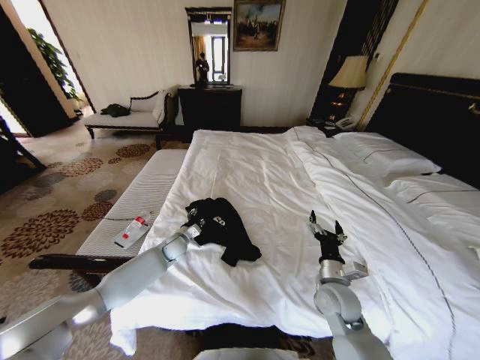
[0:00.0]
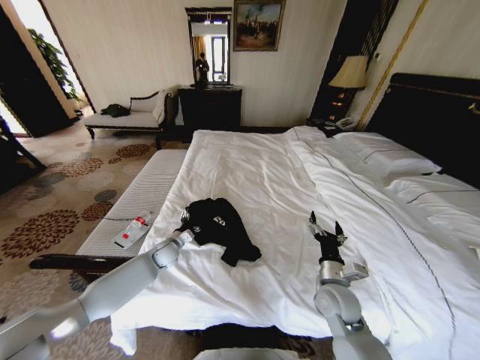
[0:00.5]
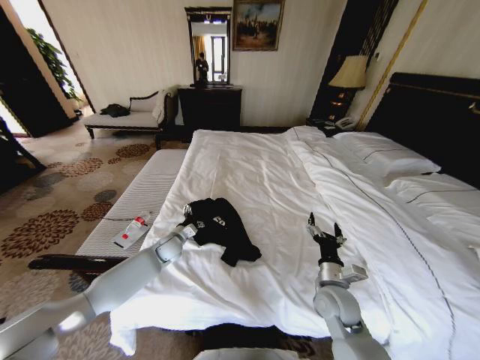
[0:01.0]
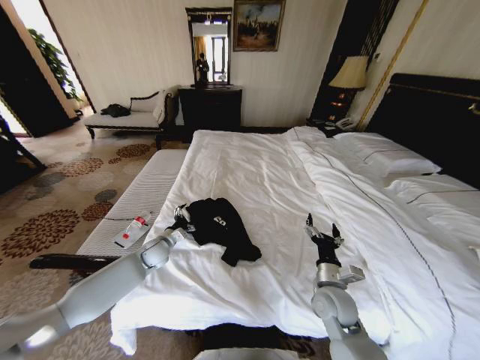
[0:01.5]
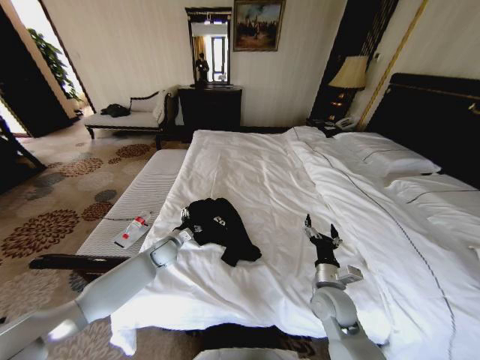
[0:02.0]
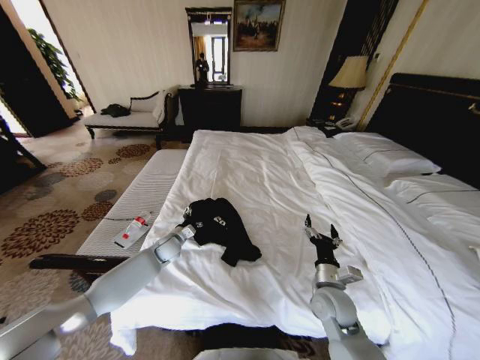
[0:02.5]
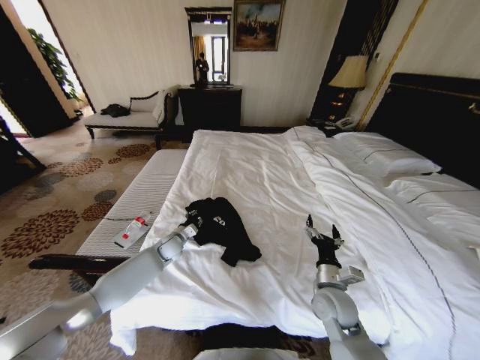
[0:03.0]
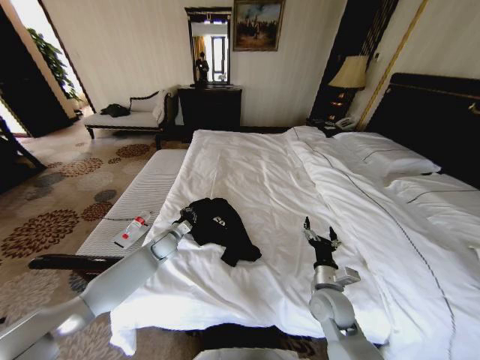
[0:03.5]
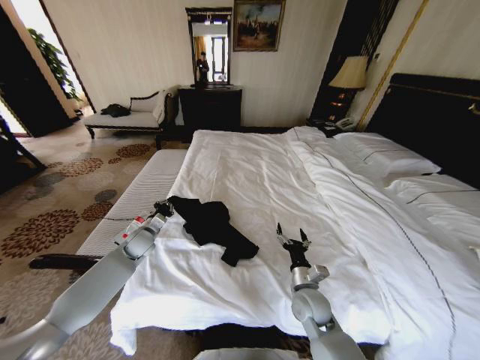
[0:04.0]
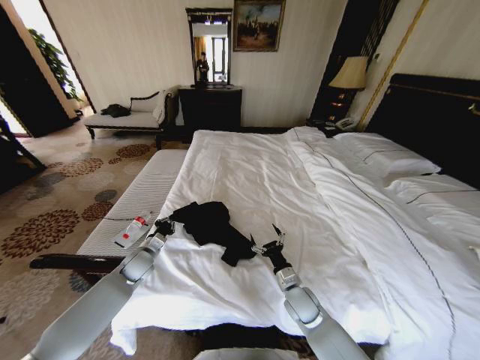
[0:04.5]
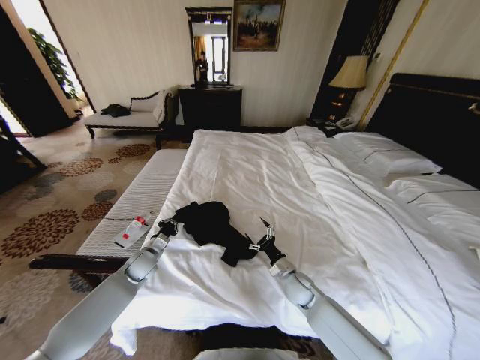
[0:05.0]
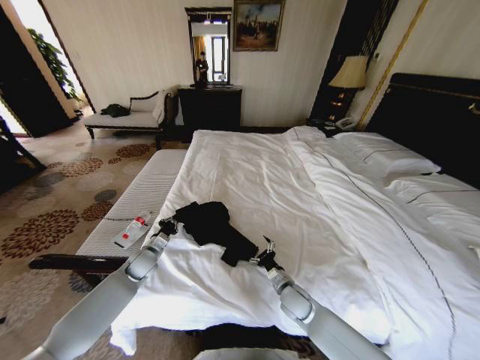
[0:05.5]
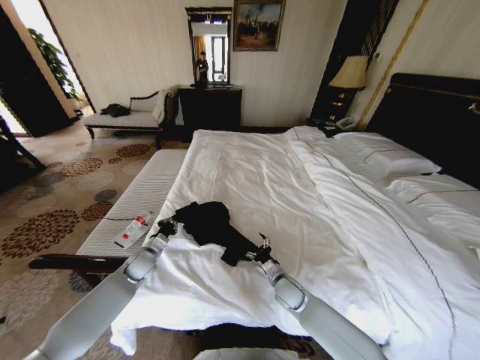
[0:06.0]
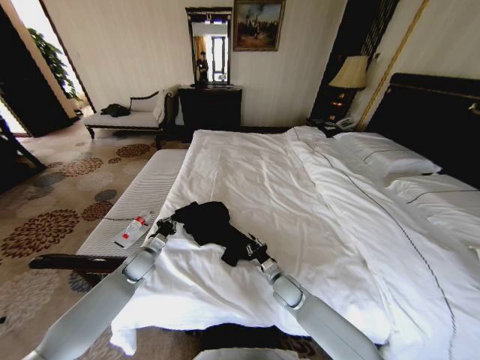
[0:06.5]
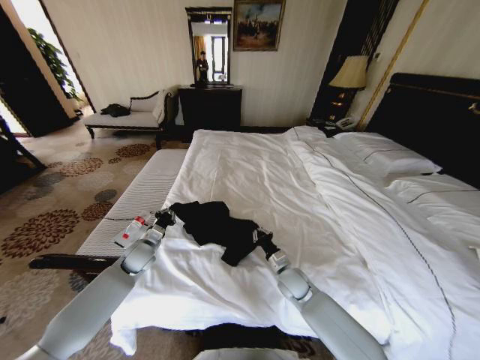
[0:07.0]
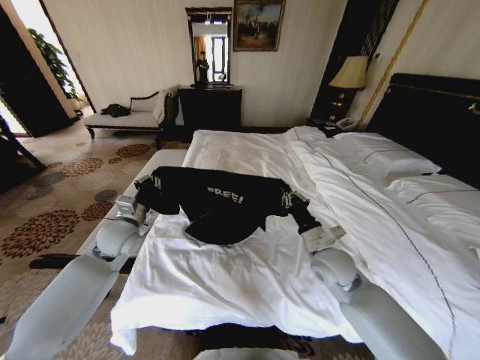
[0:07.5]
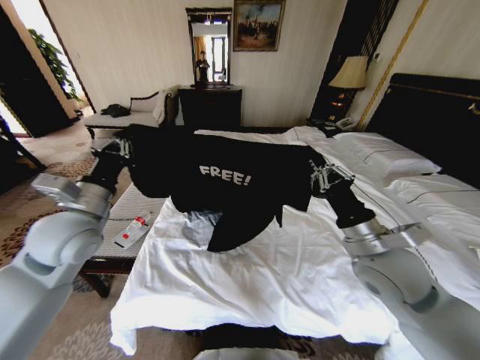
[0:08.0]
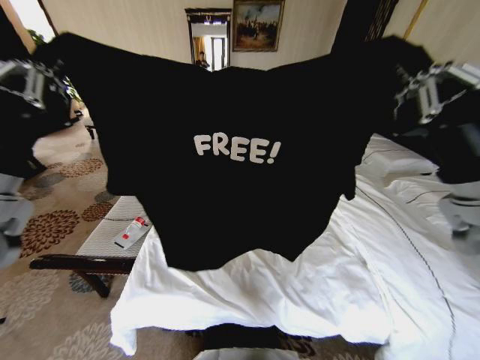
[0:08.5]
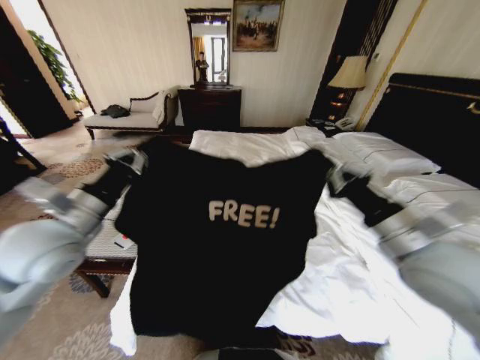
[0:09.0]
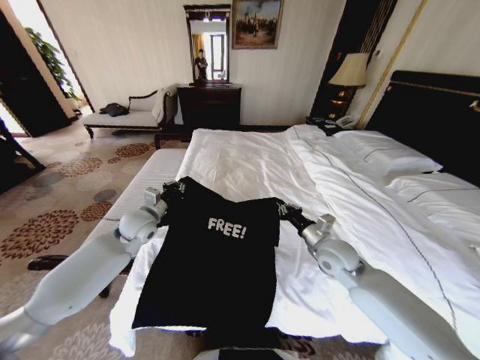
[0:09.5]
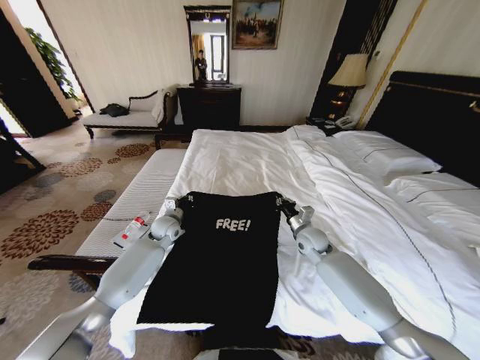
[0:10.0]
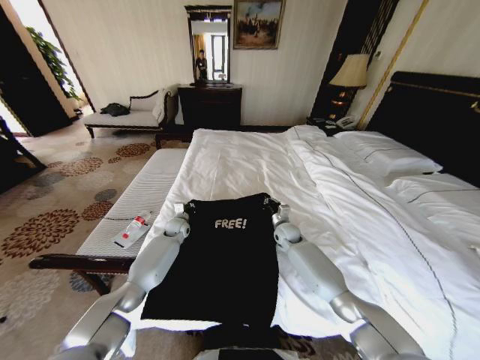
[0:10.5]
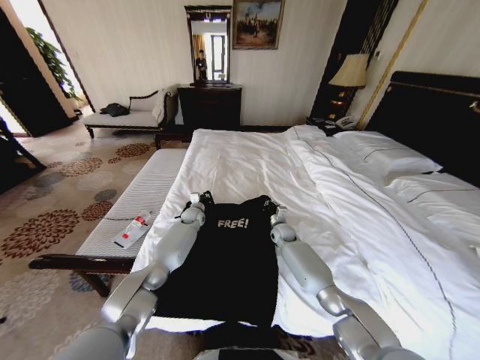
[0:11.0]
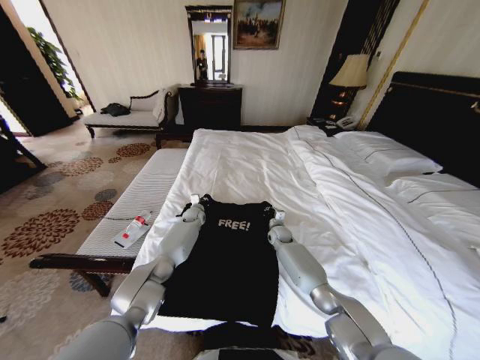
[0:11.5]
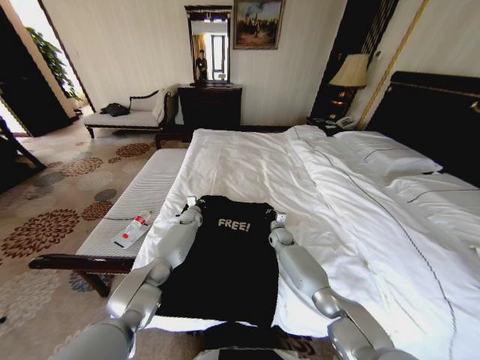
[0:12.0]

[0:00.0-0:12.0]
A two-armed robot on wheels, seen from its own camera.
Task of the whole recording: Fold the clothes on the bed.
0:00.0 to 0:02.0: The left gripper opens its fingers.
0:02.0 to 0:04.0: The left gripper shifts some 10 cm to the left and upward, and closes its fingers. Meanwhile the right gripper ends up roughly 5 cm from where it was.
0:04.0 to 0:06.0: The right gripper heads downward and forward, covering some 10 cm. The left gripper is displaced backward by roughly 5 cm.
0:06.0 to 0:08.0: Both grippers travel together upward, roughly 30 cm. The right gripper closes.
0:08.0 to 0:10.0: The left gripper travels downward and forward by approximately 30 cm; the right gripper heads forward and downward, covering some 25 cm.
0:10.0 to 0:12.0: The left gripper travels forward, downward and to the right by some 15 cm. Meanwhile the right gripper moves downward and forward, some 15 cm.

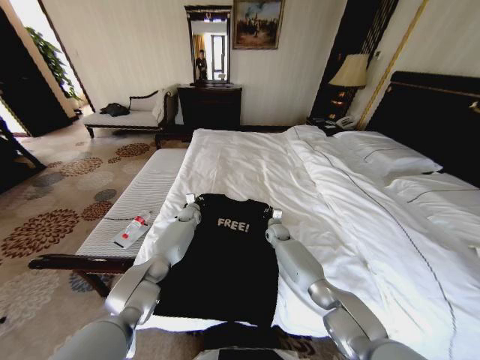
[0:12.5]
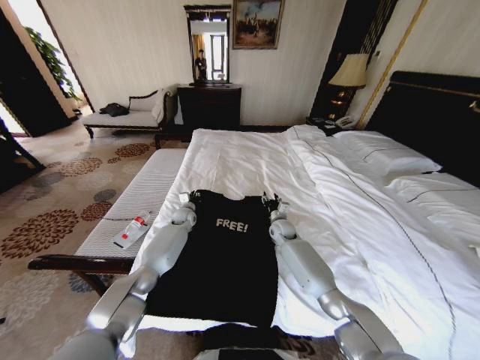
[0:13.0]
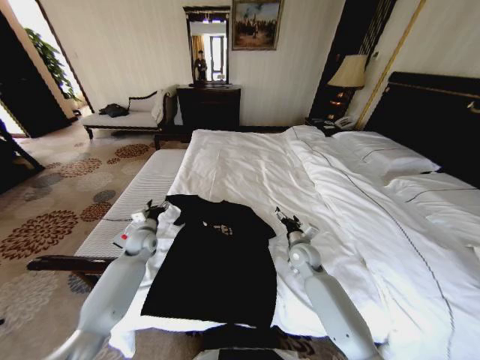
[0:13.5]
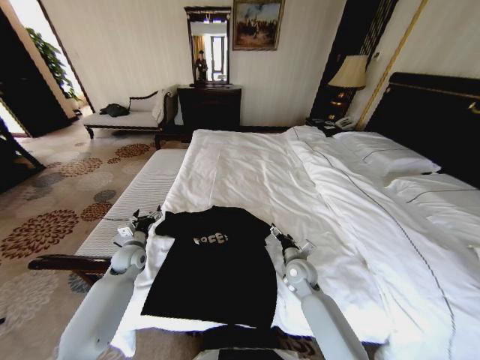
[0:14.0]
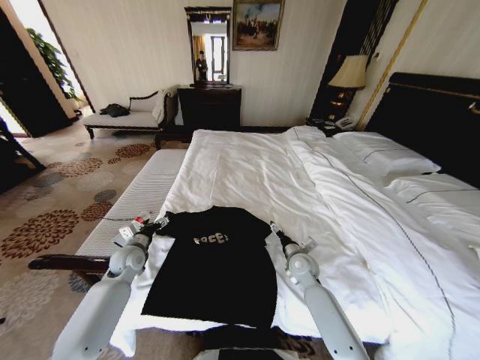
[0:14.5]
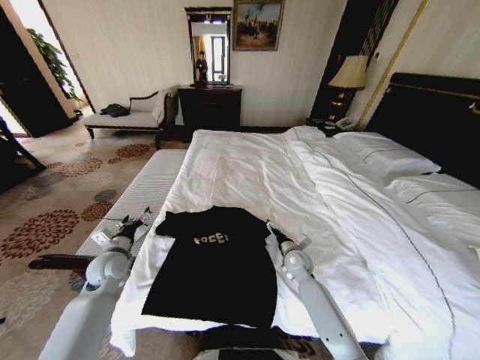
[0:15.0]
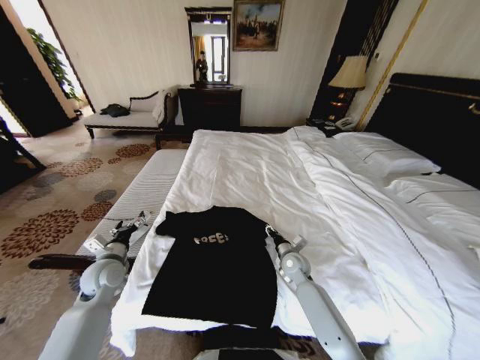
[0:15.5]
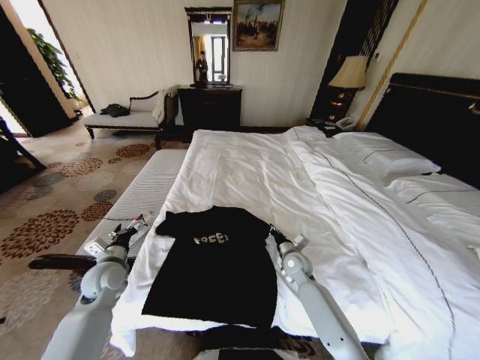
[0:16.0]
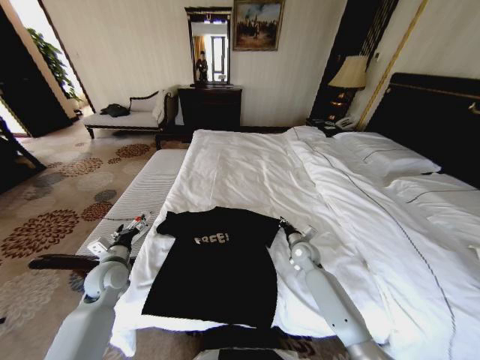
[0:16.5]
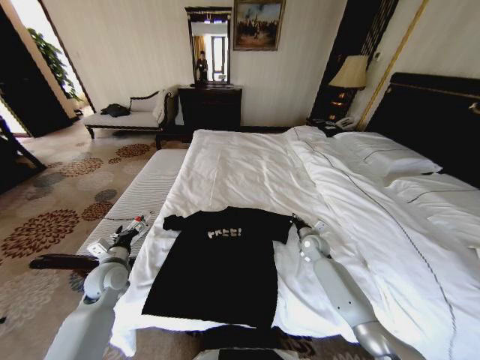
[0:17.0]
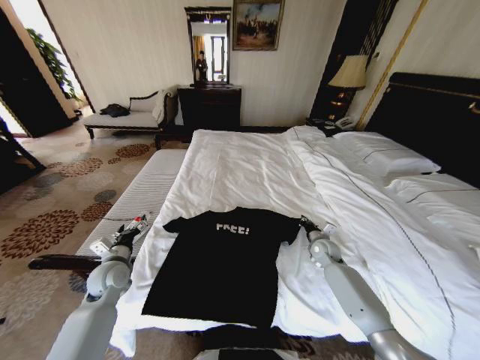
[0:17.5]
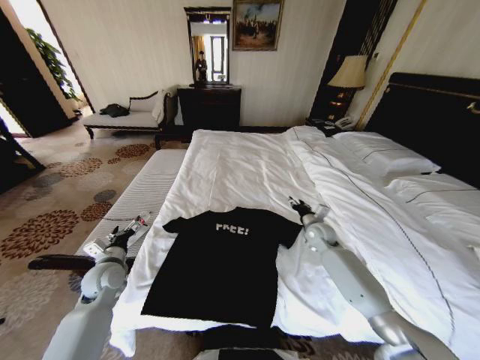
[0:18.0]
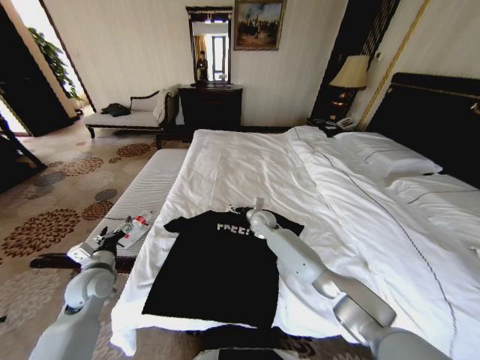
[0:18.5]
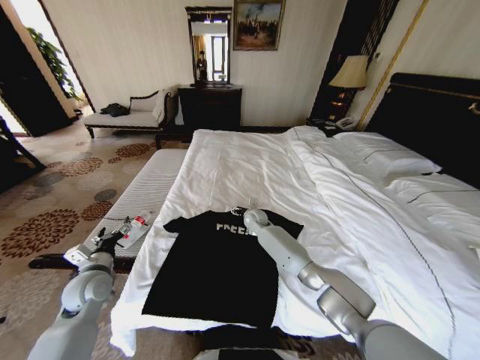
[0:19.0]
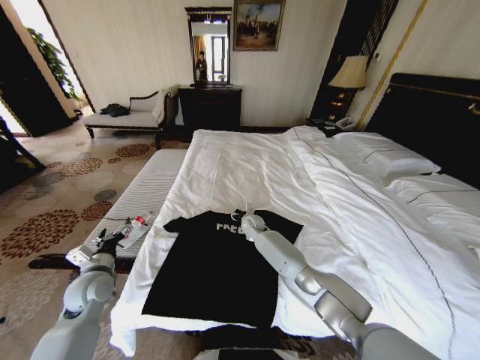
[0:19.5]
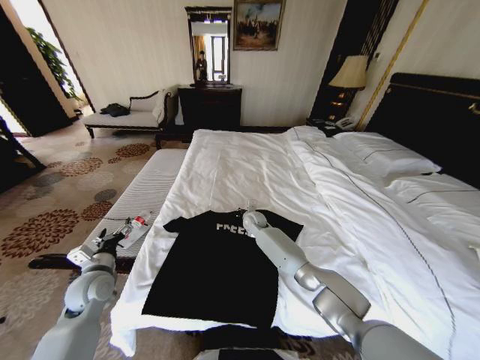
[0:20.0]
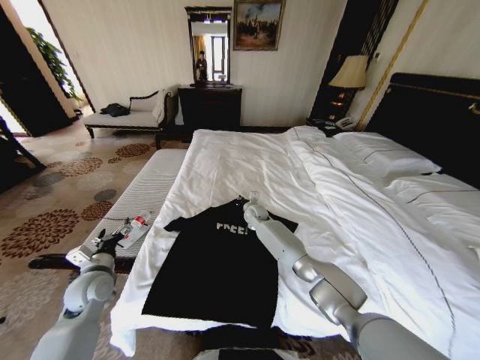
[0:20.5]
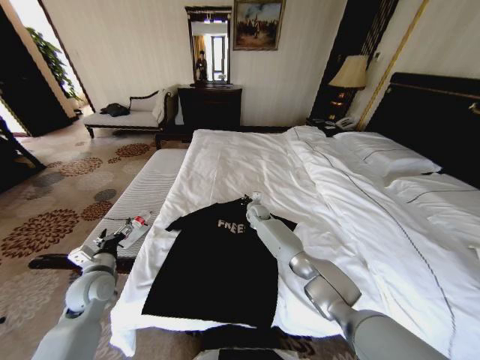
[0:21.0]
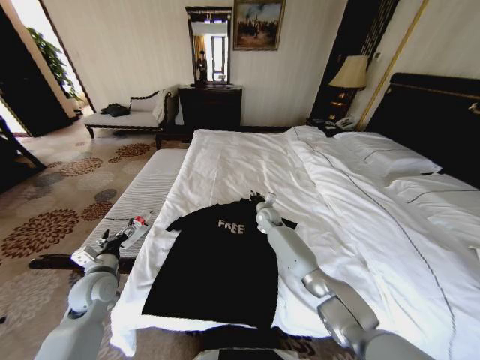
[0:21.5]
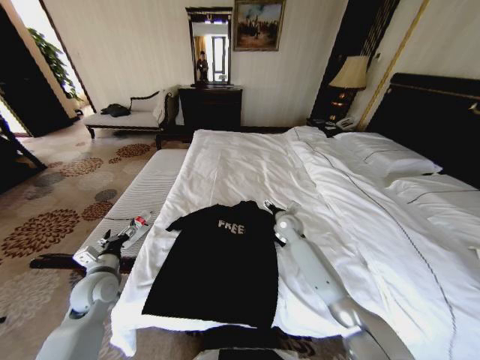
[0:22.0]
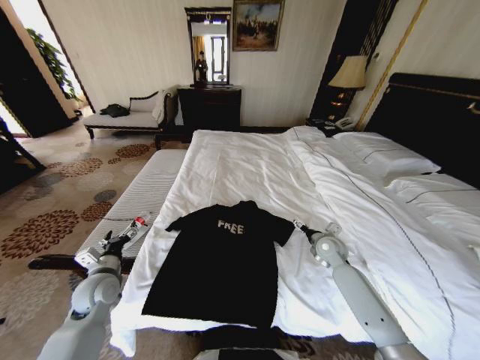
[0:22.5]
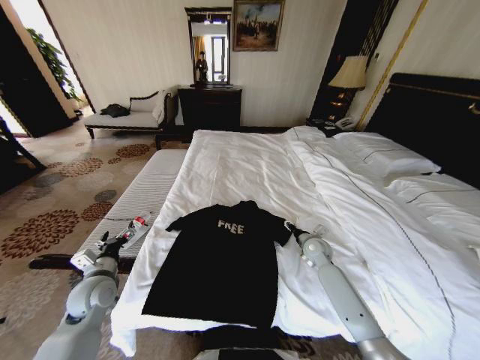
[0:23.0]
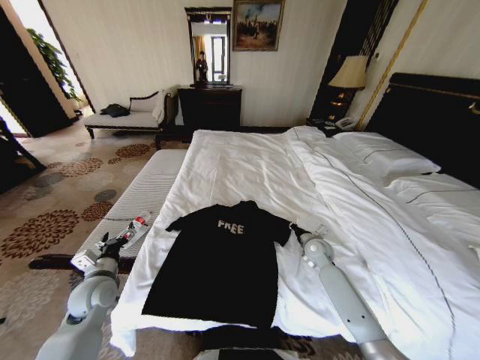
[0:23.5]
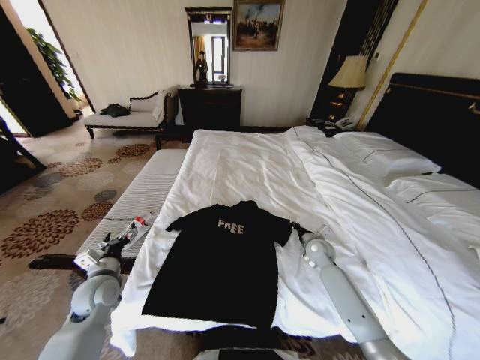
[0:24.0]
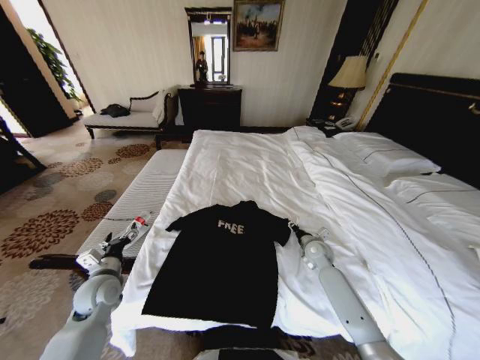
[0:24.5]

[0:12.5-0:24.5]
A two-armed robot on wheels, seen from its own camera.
Task of the whole recording: Fold the clothes on the bed.
0:12.5 to 0:14.5: The right gripper heads backward, covering roughly 15 cm, and opens up. The left gripper travels backward and to the left by roughly 30 cm, and opens.
0:14.5 to 0:16.5: The right gripper closes its fingers; the left gripper is displaced backward by about 5 cm.
0:16.5 to 0:18.5: The right gripper moves to the left, forward and upward, roughly 20 cm, and opens.
0:18.5 to 0:20.5: The right gripper is displaced forward by about 5 cm, and closes.
0:20.5 to 0:22.5: The right gripper shifts some 30 cm to the right and backward, and opens its fingers.
0:22.5 to 0:24.5: The right gripper closes up.

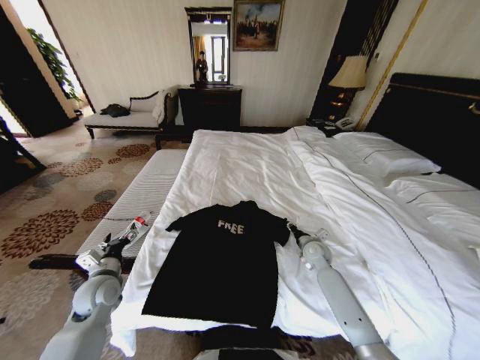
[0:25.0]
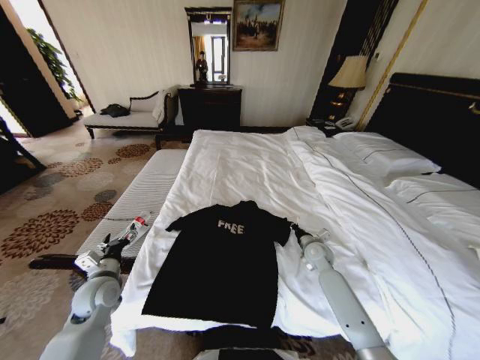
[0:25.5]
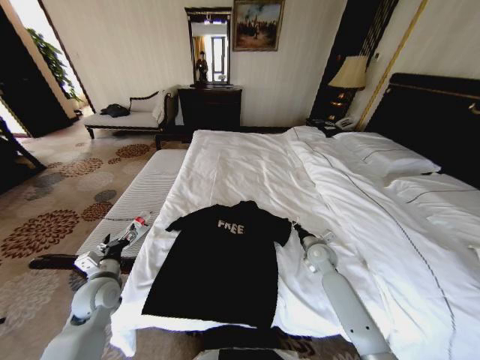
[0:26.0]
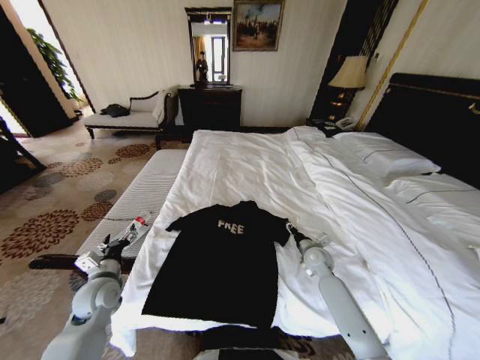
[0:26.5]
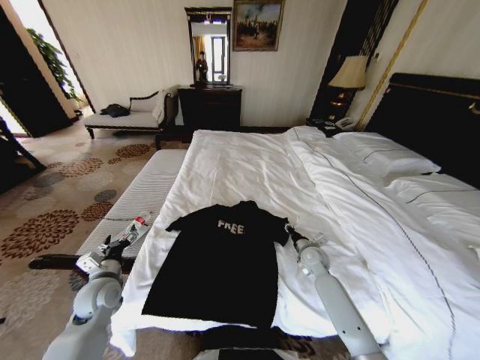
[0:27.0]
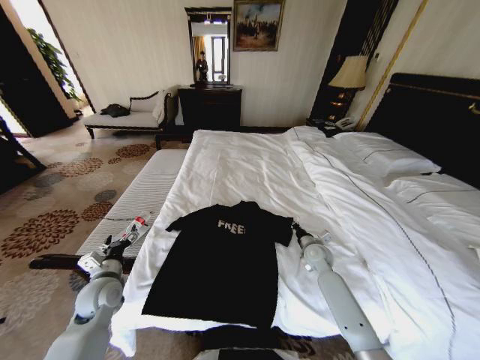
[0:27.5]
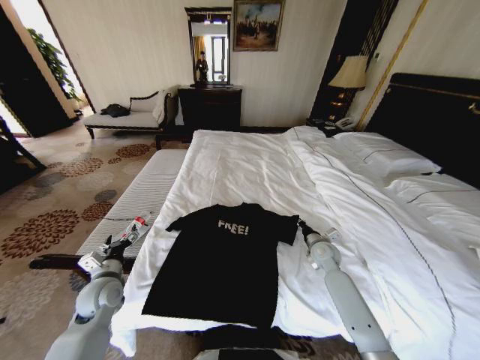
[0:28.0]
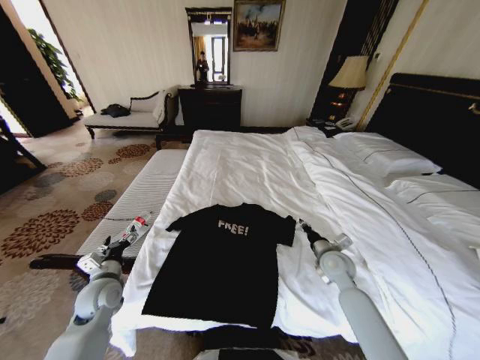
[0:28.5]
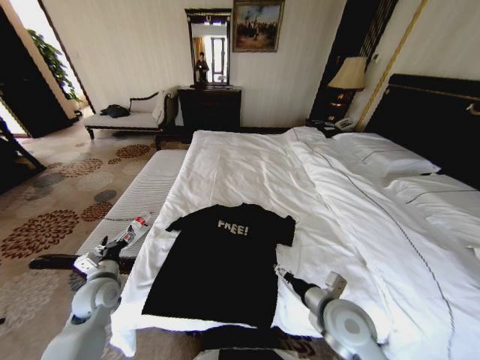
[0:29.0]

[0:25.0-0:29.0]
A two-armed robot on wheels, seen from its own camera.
Task of the whole recording: Fold the clothes on the bed.
0:25.0 to 0:27.0: The right gripper closes, then opens again.
0:27.0 to 0:29.0: The right gripper shifts some 25 cm backward and upward, and closes, then opens again.
